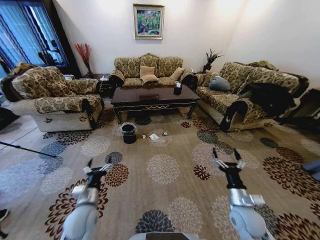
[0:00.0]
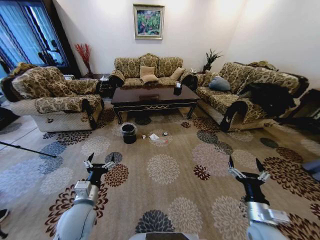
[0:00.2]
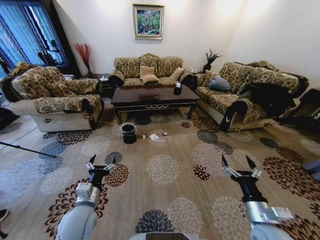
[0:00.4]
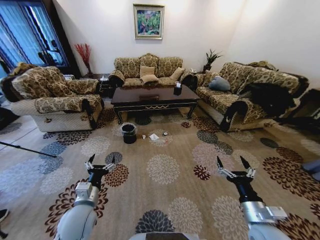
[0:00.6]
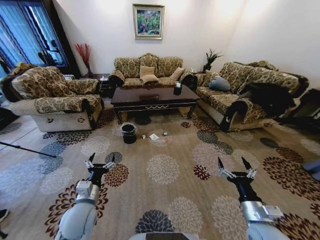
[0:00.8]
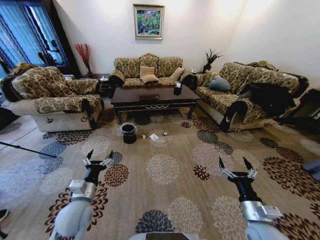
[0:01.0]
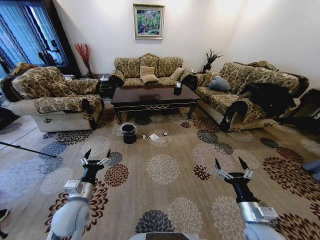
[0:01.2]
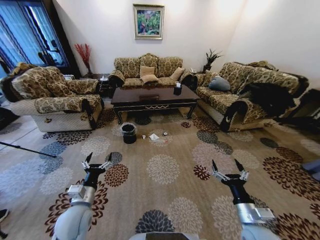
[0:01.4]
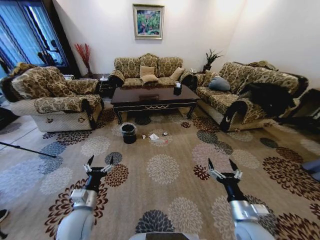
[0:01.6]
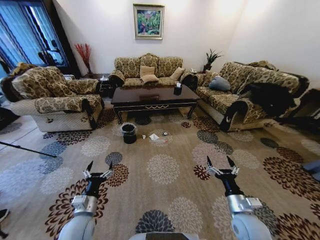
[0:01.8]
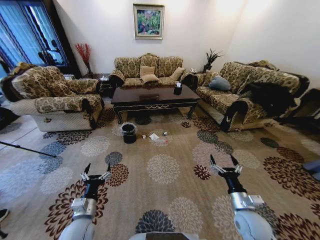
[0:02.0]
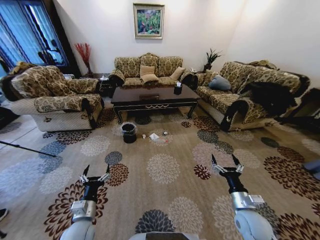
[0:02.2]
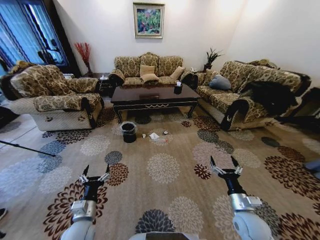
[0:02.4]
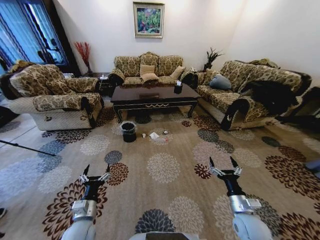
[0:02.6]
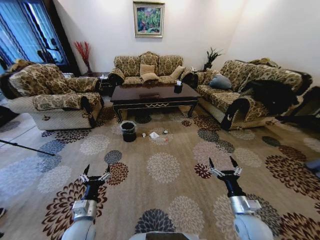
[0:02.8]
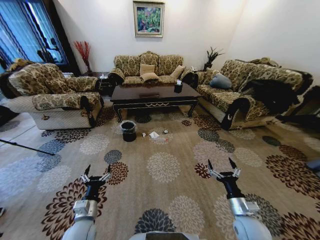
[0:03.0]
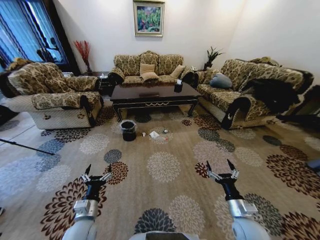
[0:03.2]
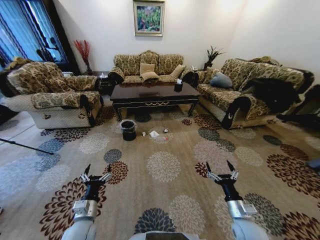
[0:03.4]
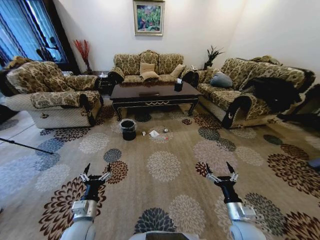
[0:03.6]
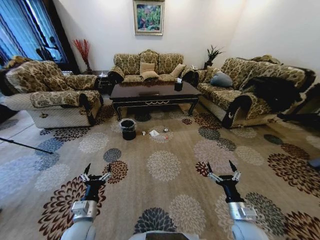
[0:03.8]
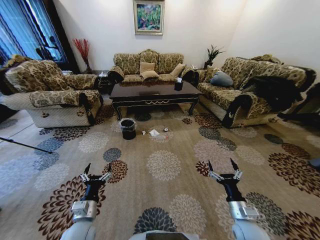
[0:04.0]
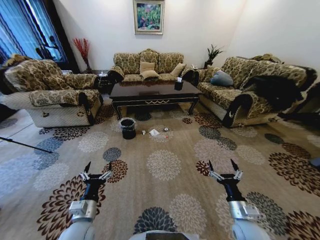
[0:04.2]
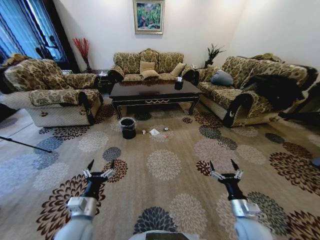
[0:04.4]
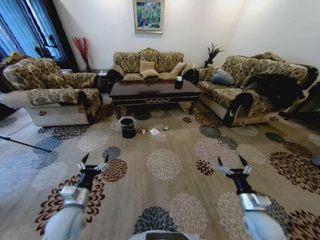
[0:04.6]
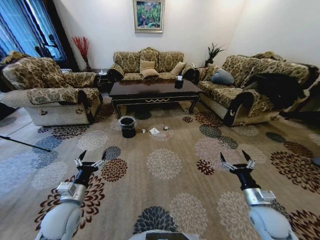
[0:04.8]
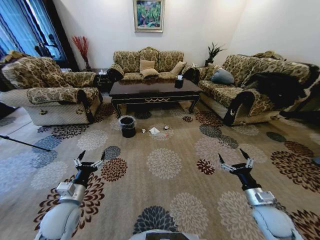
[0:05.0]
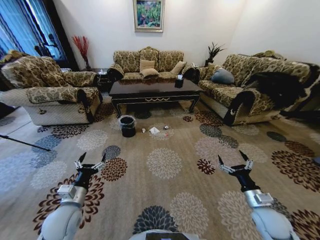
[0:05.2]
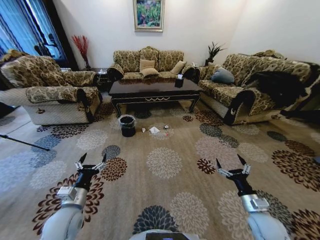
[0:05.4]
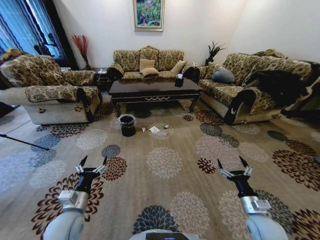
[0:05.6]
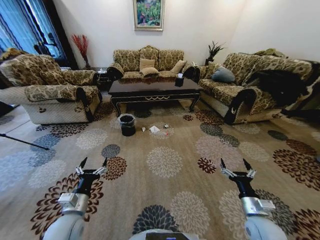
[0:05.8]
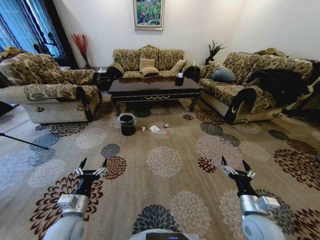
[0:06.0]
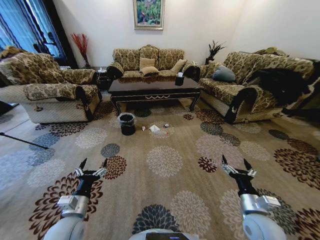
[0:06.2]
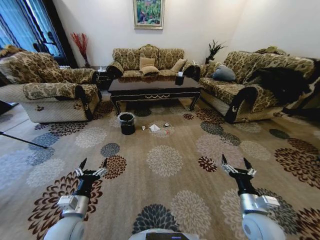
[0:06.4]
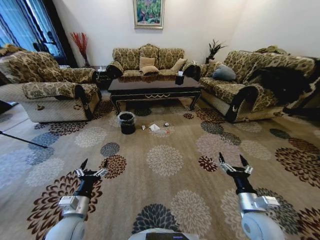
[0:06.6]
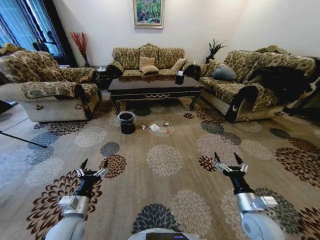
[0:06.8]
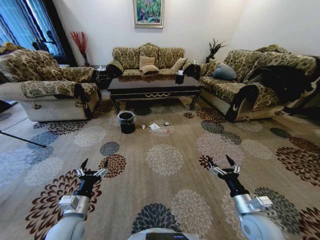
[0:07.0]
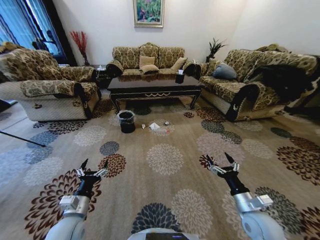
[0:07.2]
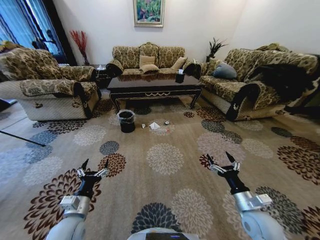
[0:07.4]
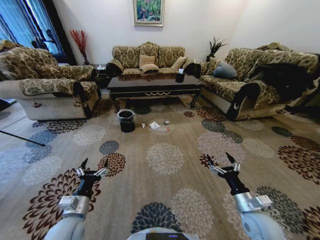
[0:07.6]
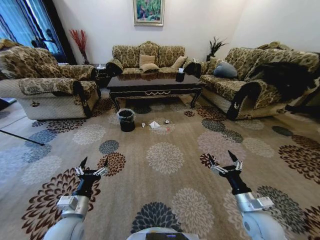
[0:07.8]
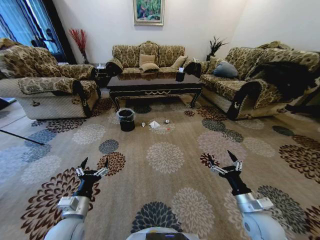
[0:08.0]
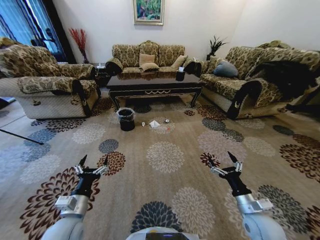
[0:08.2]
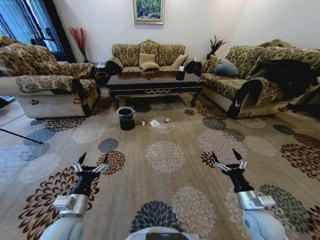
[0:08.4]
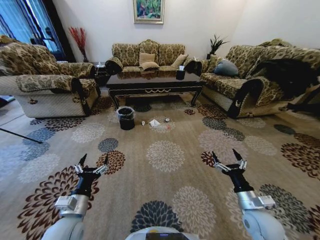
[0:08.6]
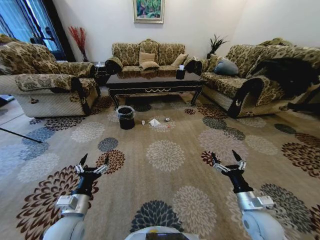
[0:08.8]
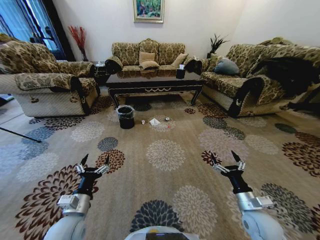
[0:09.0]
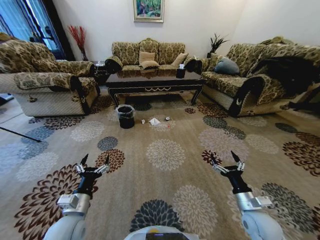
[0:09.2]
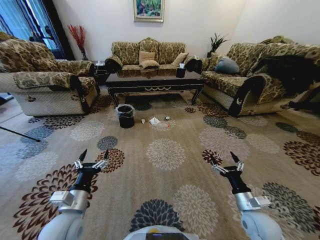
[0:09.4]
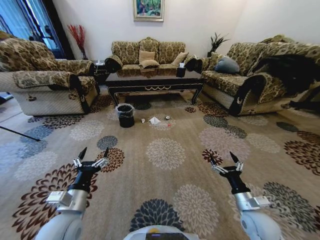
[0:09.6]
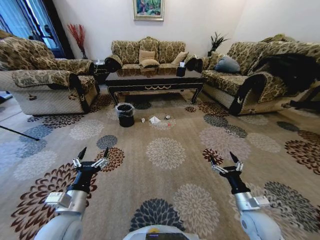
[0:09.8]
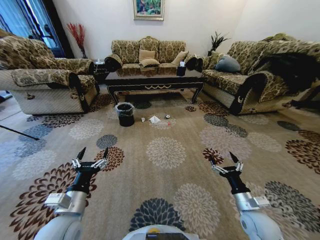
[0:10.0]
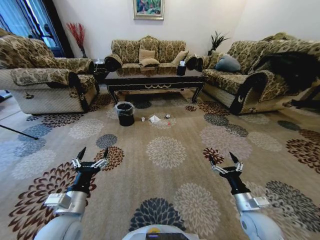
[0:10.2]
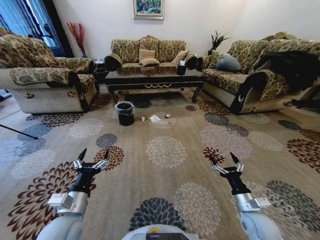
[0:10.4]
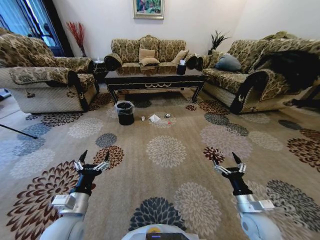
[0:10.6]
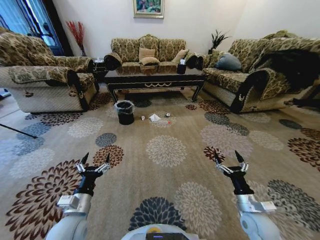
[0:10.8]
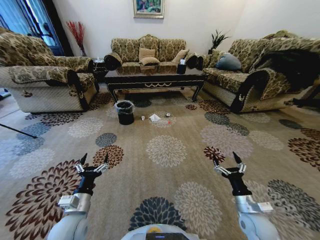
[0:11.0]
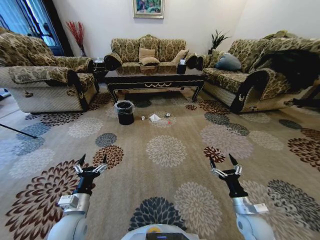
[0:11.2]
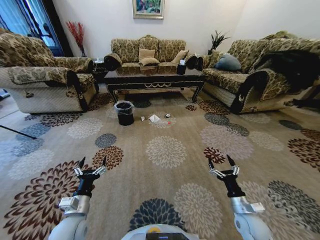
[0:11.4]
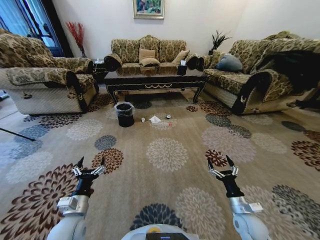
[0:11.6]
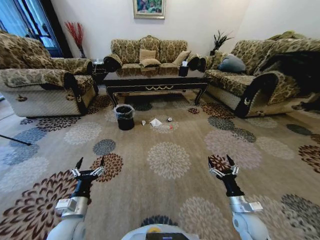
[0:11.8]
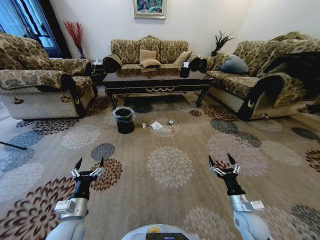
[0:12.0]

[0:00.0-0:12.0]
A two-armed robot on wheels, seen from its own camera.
Task of the whole recording: Move to the front of the table and pick up the trash from the floor, then place it into the trash bin.
0:01.6 to 0:03.0: The right gripper changes place by approximately 5 cm.
0:03.0 to 0:04.4: The left gripper travels upward by roughly 5 cm.
0:04.4 to 0:06.0: The right gripper goes to the right and returns, roughly 10 cm each way.
0:10.4 to 0:12.0: The left gripper shifts approximately 5 cm downward.

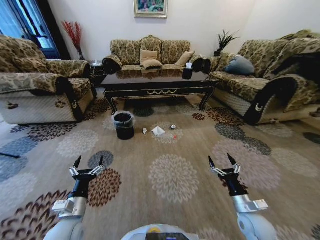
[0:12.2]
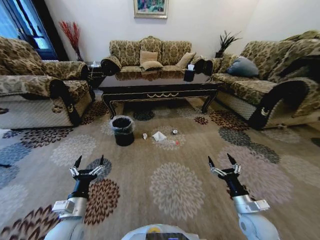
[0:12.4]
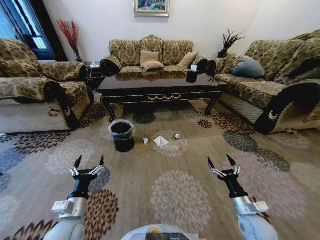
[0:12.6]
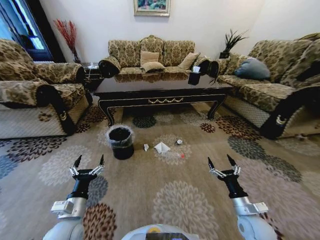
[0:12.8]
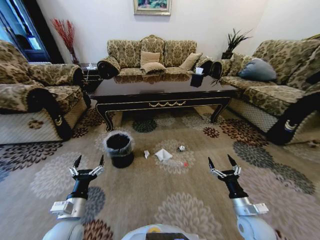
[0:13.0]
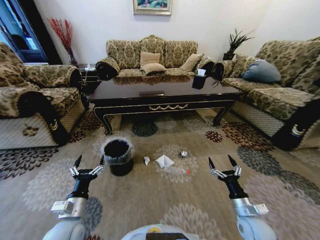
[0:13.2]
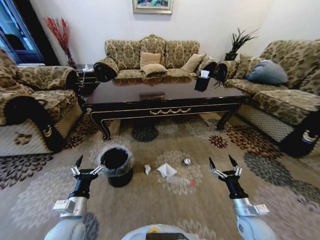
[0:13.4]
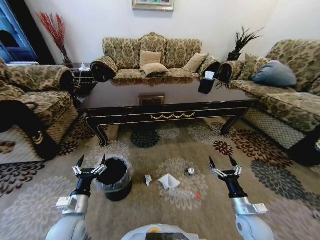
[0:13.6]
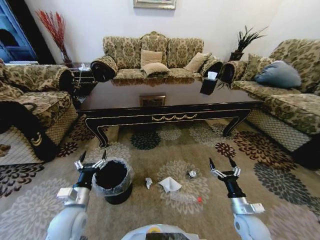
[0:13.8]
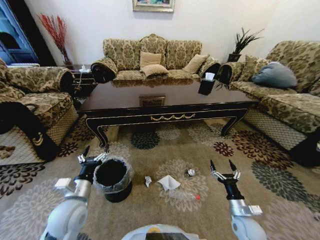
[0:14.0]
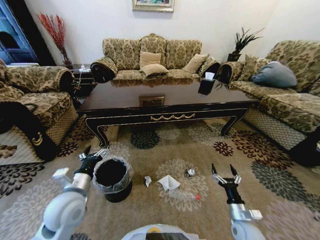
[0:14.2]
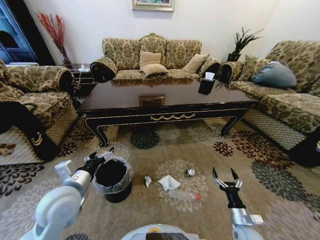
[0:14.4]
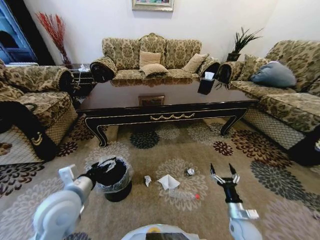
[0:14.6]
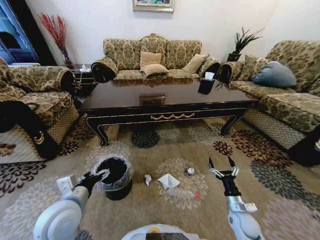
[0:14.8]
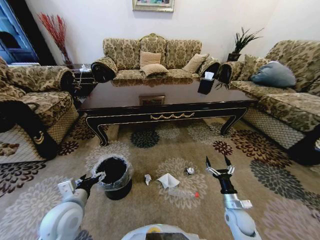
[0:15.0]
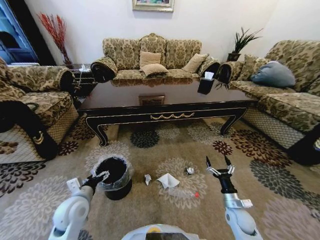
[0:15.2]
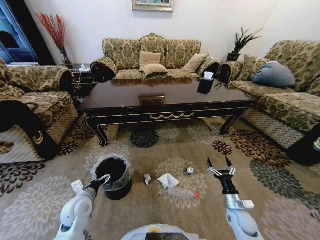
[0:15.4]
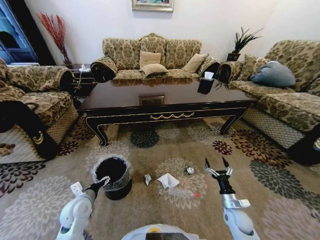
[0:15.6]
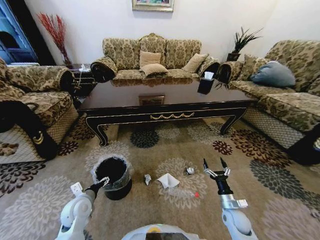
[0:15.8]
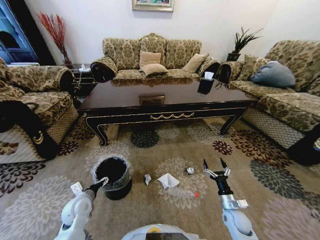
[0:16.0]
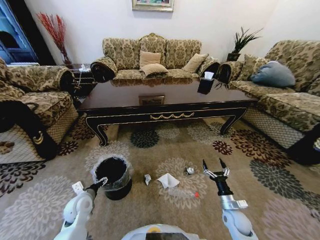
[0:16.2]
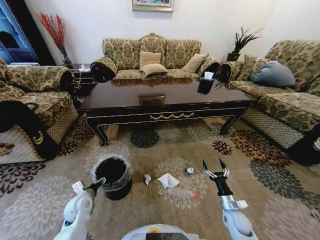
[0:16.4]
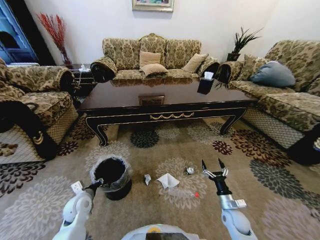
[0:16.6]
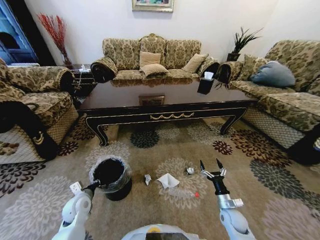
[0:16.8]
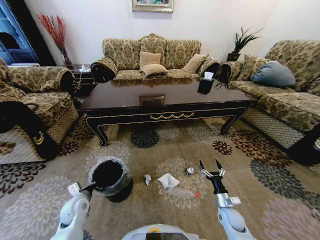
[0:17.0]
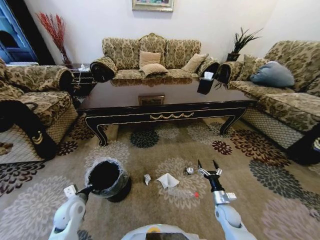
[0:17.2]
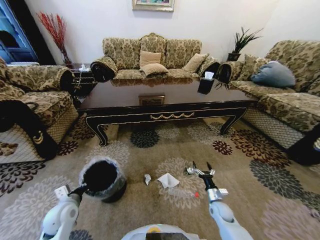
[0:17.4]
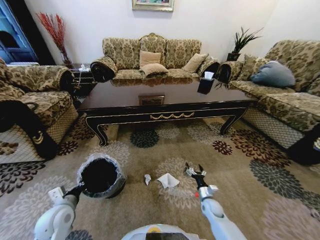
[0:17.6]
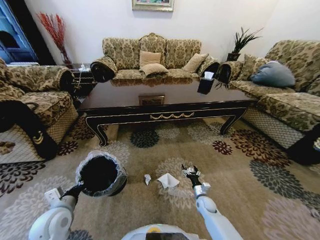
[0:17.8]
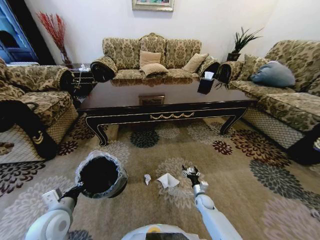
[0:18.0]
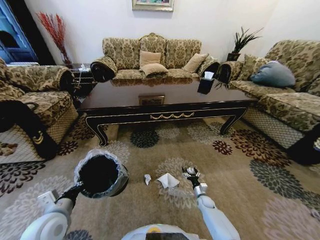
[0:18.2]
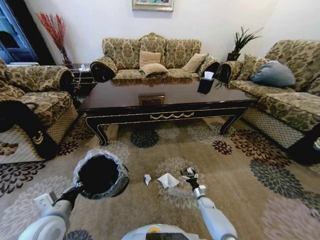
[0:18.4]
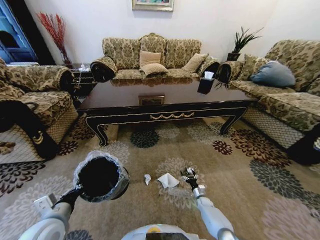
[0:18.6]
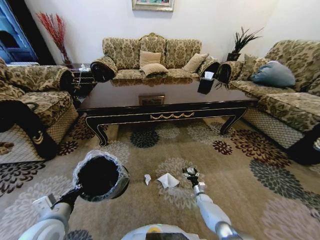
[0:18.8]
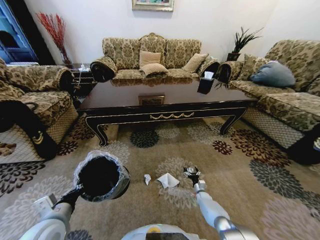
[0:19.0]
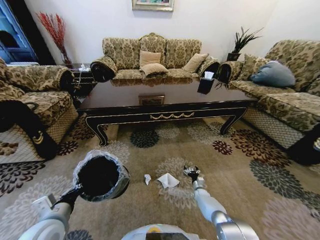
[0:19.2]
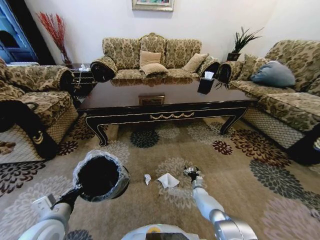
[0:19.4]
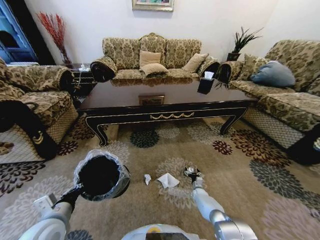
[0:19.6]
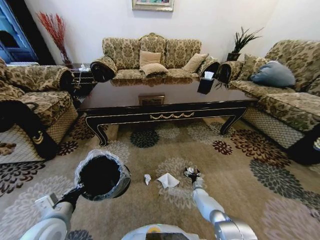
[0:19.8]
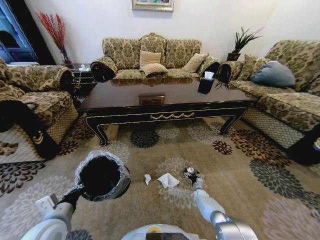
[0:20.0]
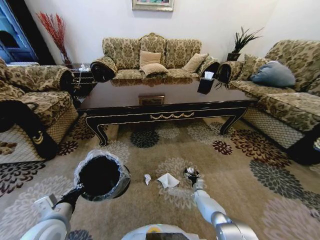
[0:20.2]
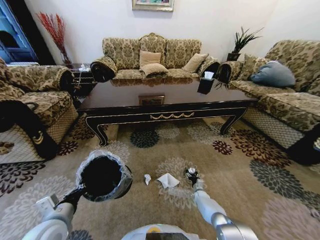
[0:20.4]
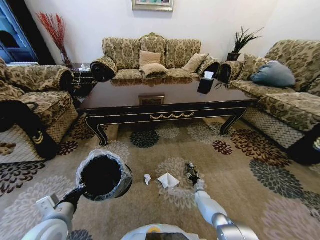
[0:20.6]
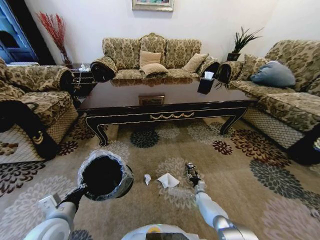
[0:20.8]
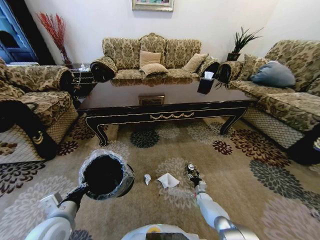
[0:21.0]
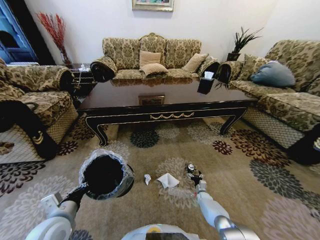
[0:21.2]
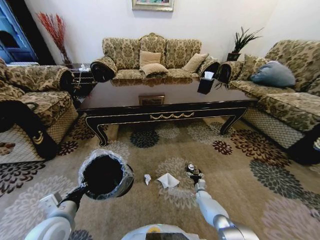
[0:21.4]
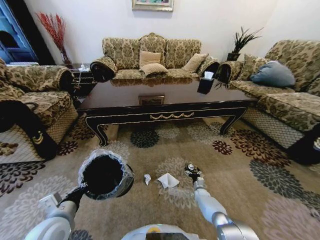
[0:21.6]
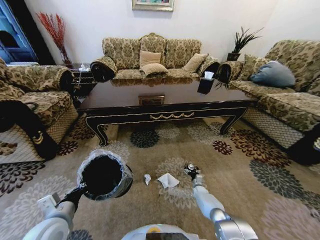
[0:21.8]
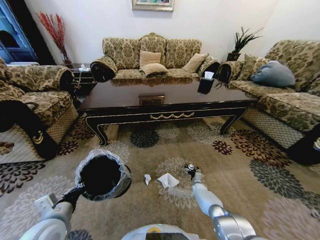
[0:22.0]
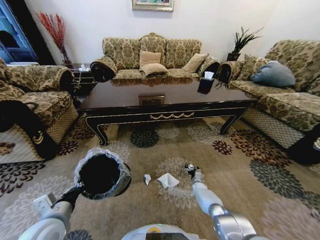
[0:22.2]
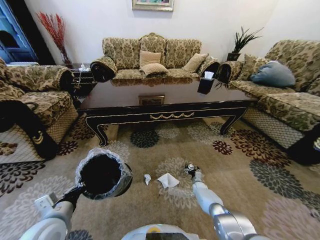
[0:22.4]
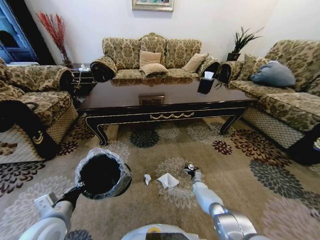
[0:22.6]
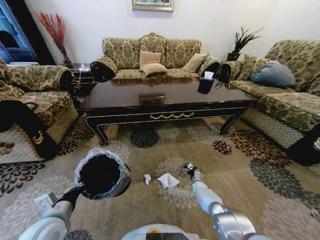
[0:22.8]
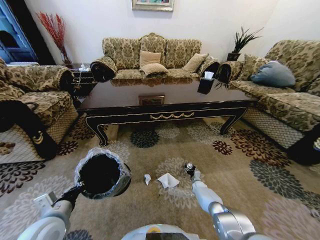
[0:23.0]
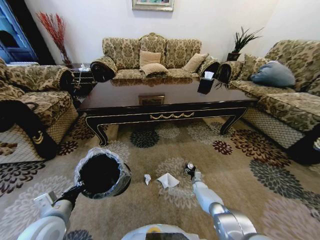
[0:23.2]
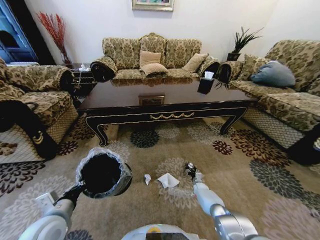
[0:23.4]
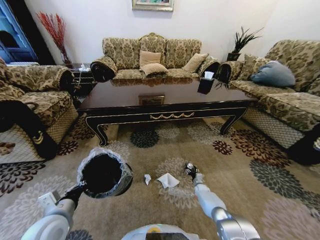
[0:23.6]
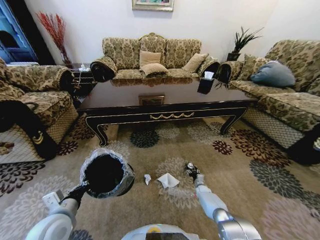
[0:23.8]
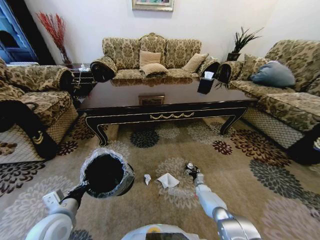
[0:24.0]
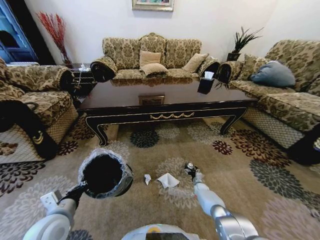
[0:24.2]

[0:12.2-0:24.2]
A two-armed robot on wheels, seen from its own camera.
Task of the whole recording: Move to the front of the table and pick up the trash from the floor, then place it into the trash bin.
0:13.8 to 0:15.2: The right gripper shifts by approximately 5 cm; the left gripper goes upward and returns, about 10 cm each way.
0:15.2 to 0:16.6: The left gripper travels downward by some 10 cm, and closes up.
0:16.6 to 0:18.2: The left gripper goes approximately 15 cm upward and backward, and closes up. Meanwhile the right gripper heads downward and forward, covering about 20 cm.
0:18.2 to 0:19.8: The right gripper heads forward, covering roughly 5 cm.
0:19.8 to 0:21.2: There are only small adjustments of the grippers.
0:21.2 to 0:22.6: The right gripper heads forward, covering approximately 5 cm.
0:22.6 to 0:24.2: The grippers stay close to where they were, moving slightly.
